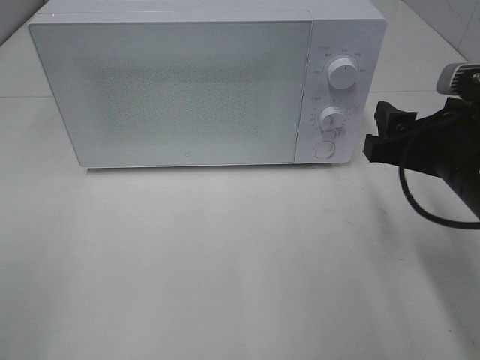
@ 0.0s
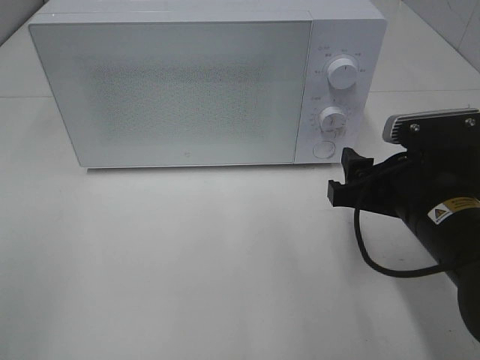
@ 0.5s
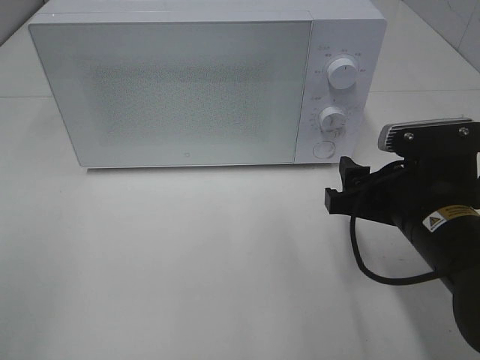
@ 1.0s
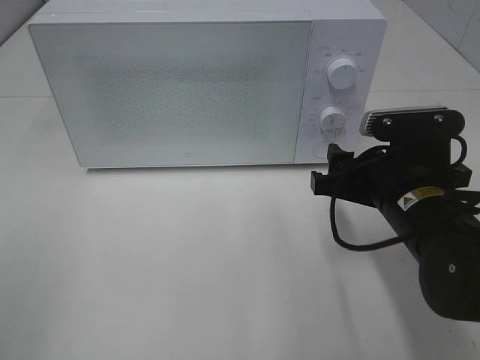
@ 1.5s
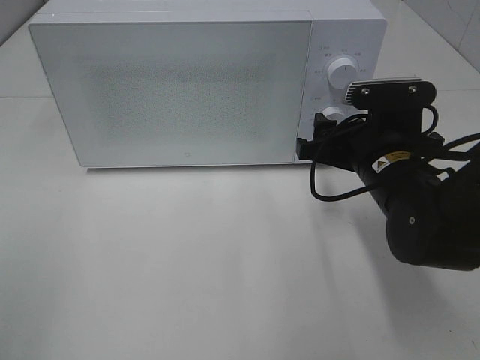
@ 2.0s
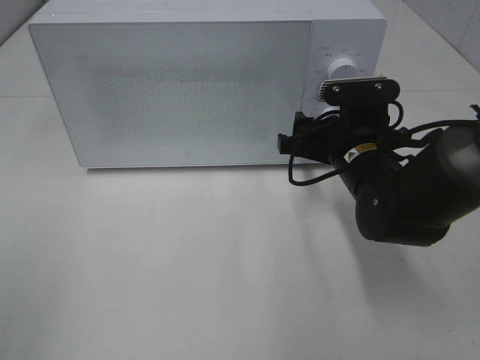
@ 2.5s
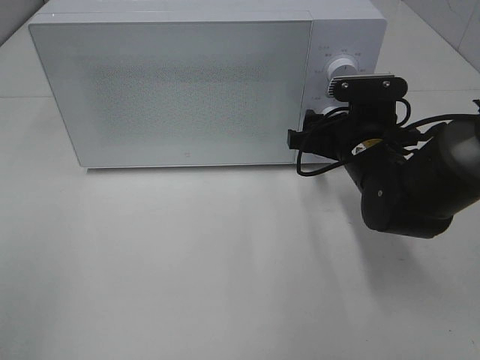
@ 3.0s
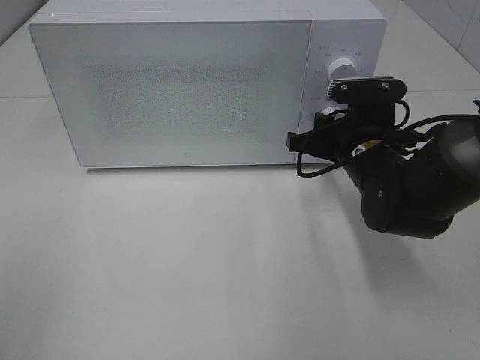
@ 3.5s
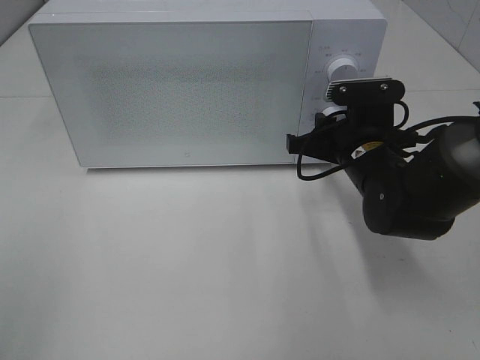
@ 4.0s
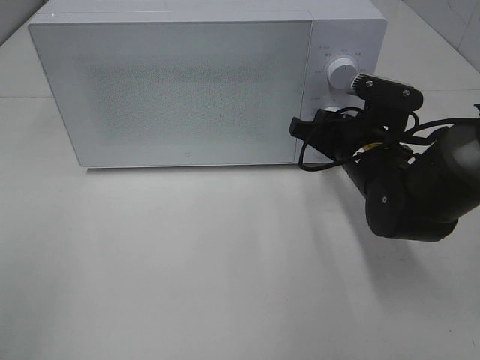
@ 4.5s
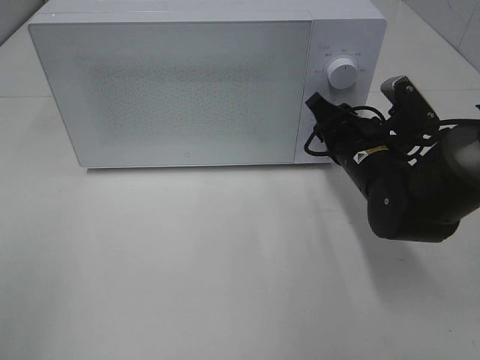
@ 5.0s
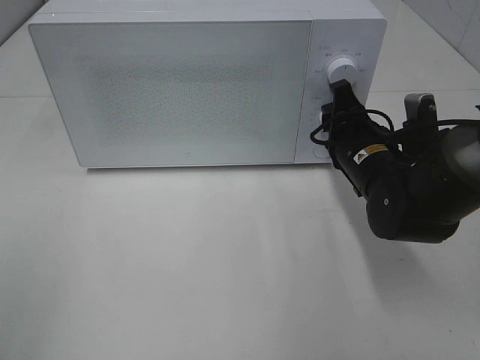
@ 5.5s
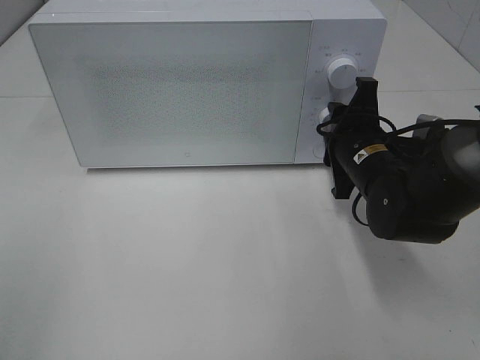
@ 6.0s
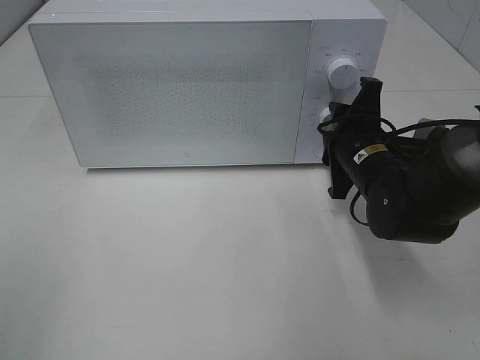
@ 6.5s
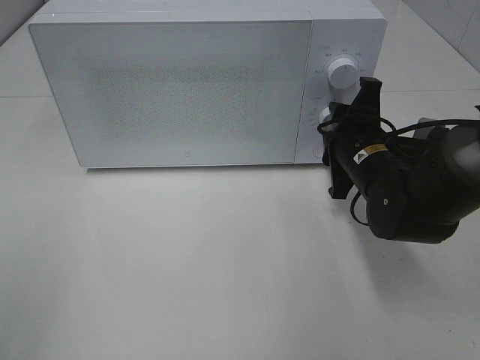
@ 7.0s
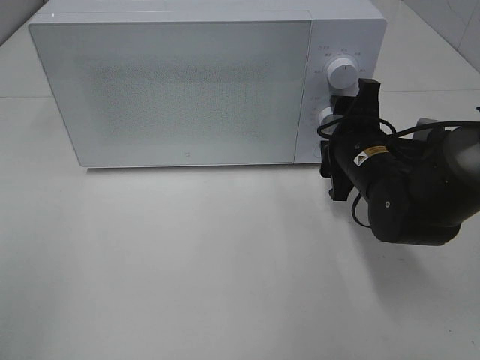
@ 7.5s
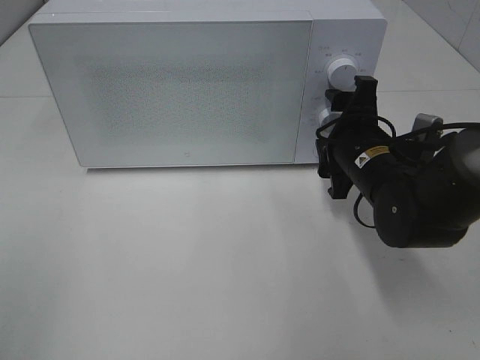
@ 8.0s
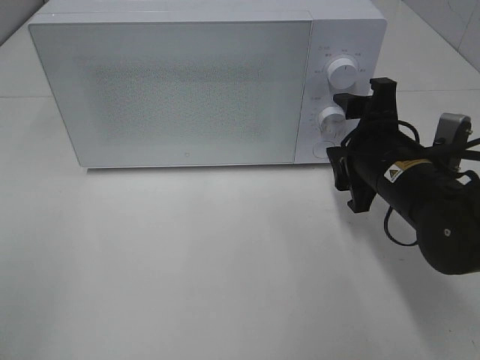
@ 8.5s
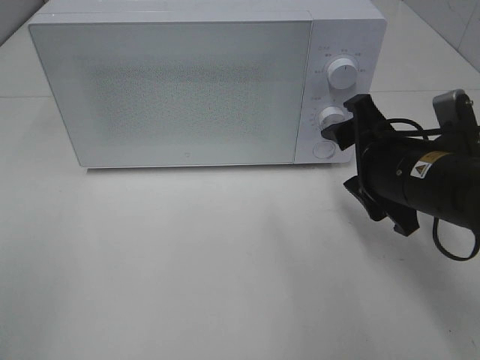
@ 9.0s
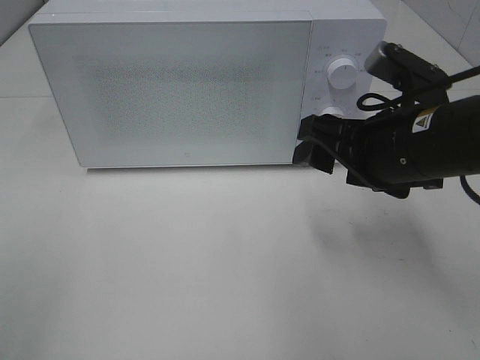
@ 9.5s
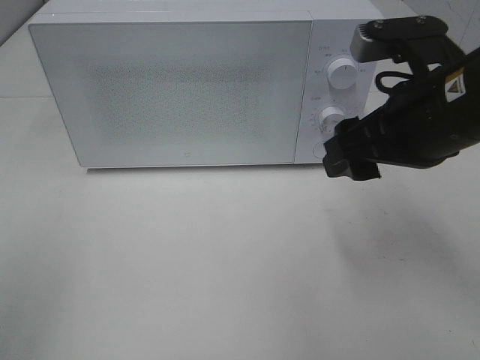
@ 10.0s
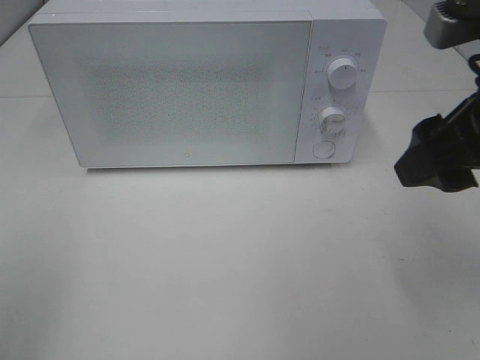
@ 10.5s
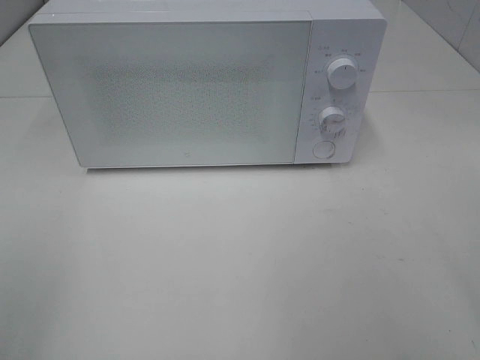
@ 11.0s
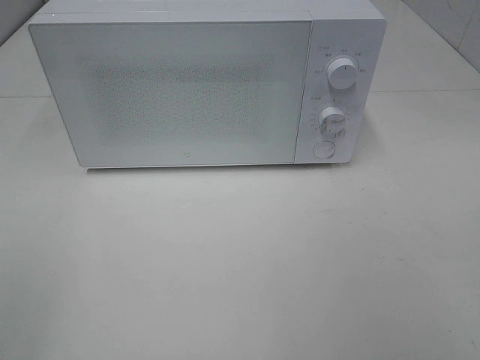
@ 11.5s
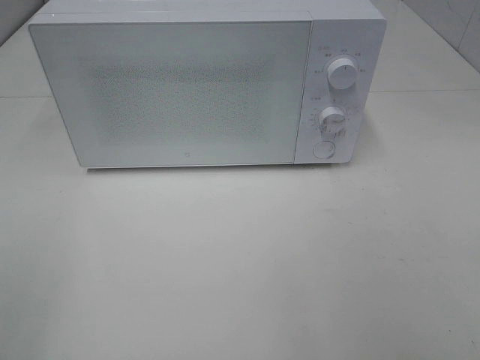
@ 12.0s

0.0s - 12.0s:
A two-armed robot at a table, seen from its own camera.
Task of the whole recording: Heat Sandwich.
Step, 0.0s - 8.0s: Right hand: twist timer button.
0.0s - 2.0s: The right gripper is displaced forward by approximately 5 cm.
2.0s - 4.0s: The right gripper closes its fingers.
6.0s - 8.0s: The right gripper opens up.
8.0s - 10.0s: The right gripper moves upward and backward, roughly 15 cm.
10.0s - 12.0s: The right gripper is displaced backward and to the right by approximately 25 cm.

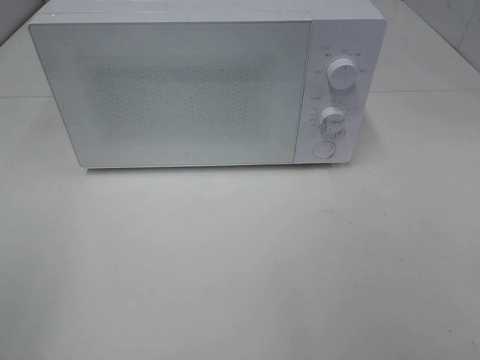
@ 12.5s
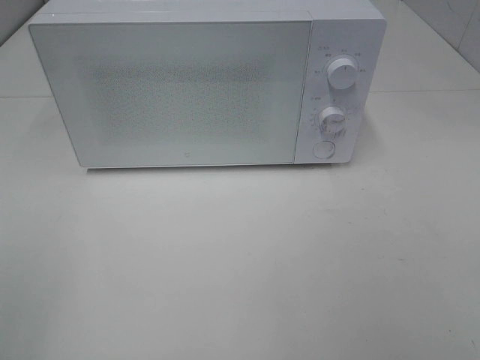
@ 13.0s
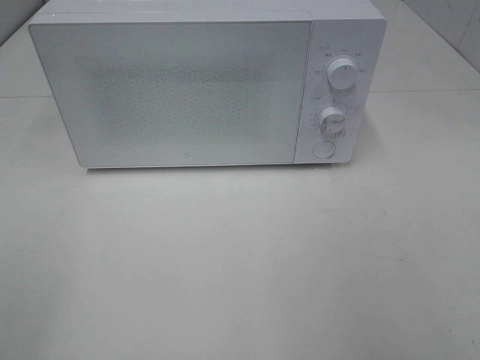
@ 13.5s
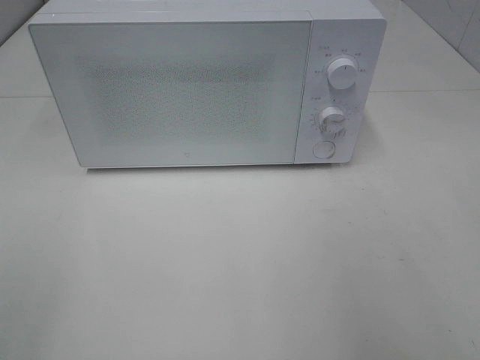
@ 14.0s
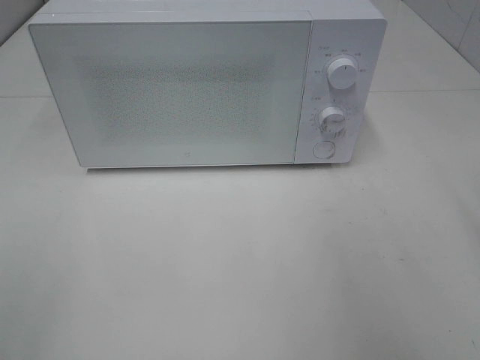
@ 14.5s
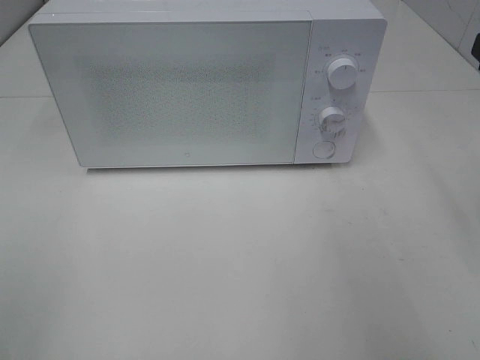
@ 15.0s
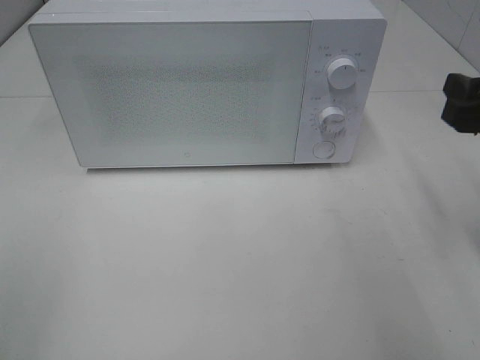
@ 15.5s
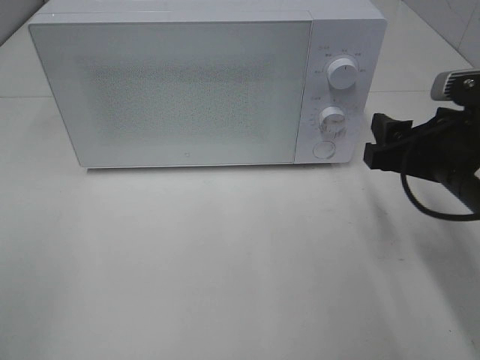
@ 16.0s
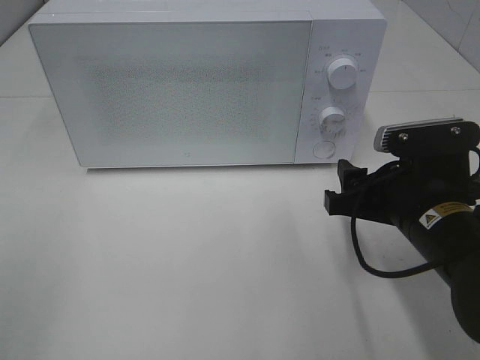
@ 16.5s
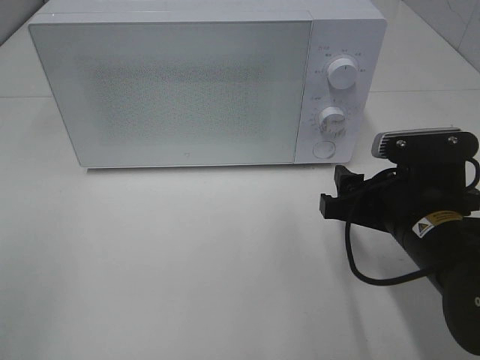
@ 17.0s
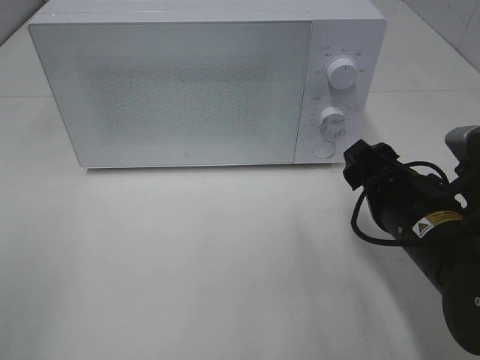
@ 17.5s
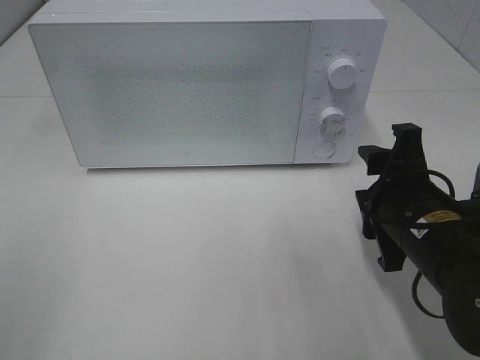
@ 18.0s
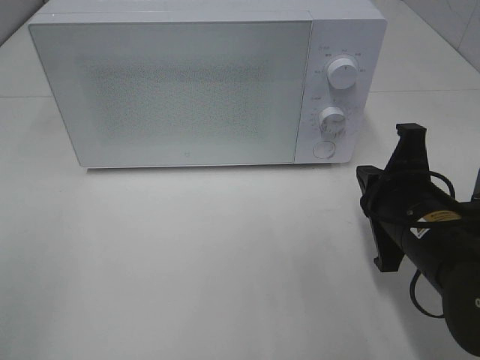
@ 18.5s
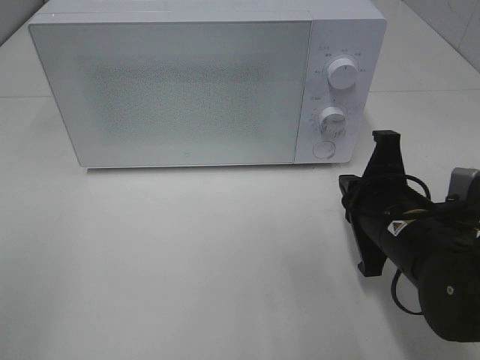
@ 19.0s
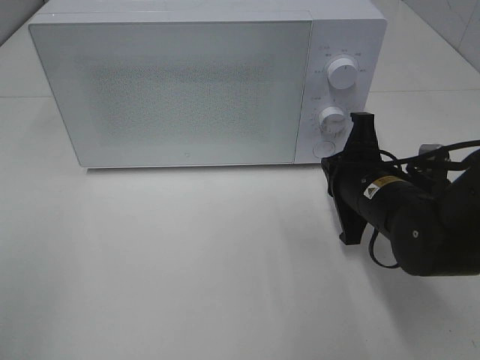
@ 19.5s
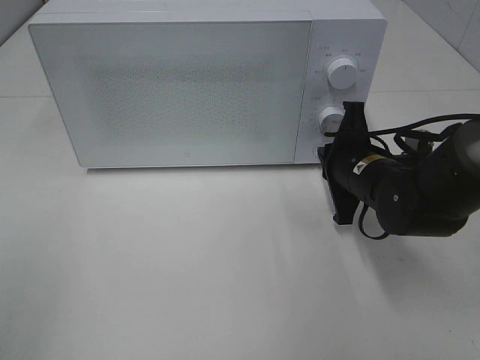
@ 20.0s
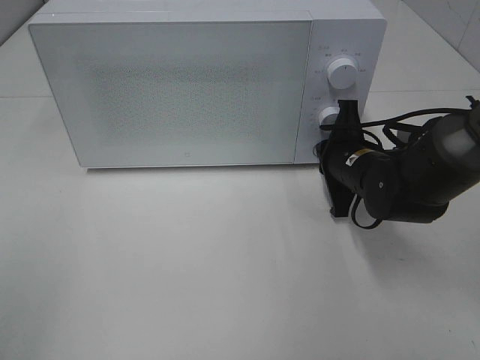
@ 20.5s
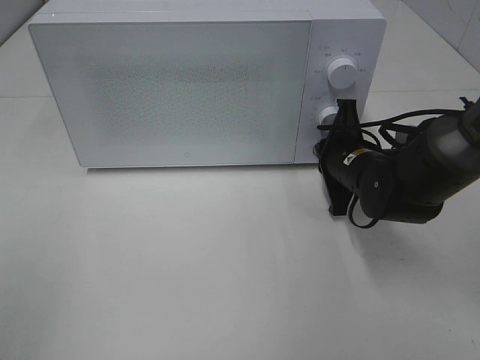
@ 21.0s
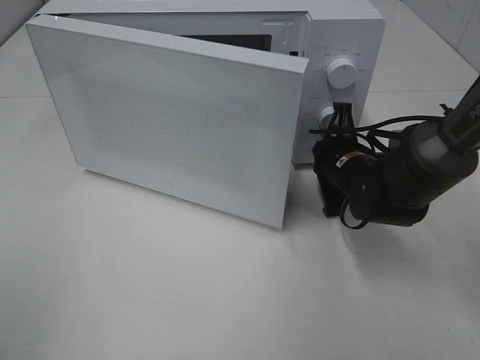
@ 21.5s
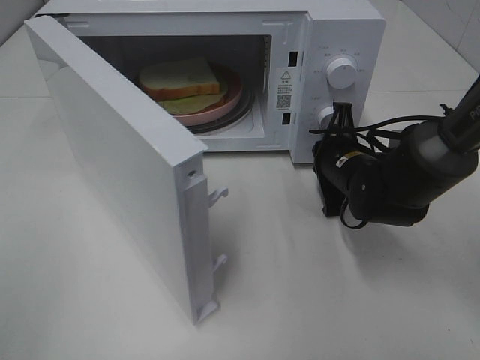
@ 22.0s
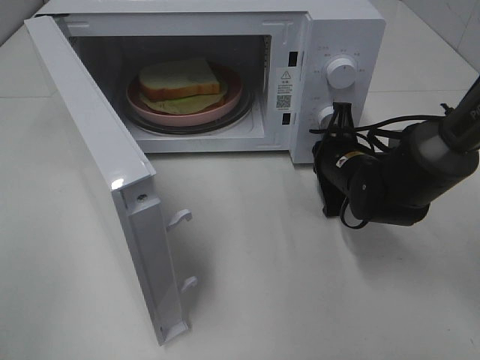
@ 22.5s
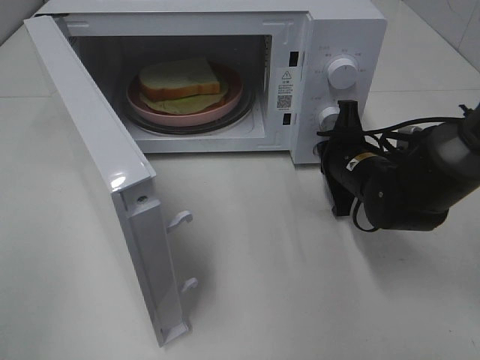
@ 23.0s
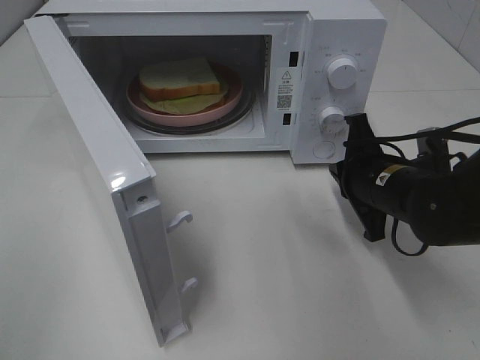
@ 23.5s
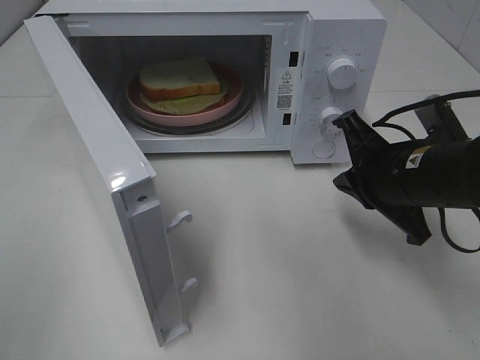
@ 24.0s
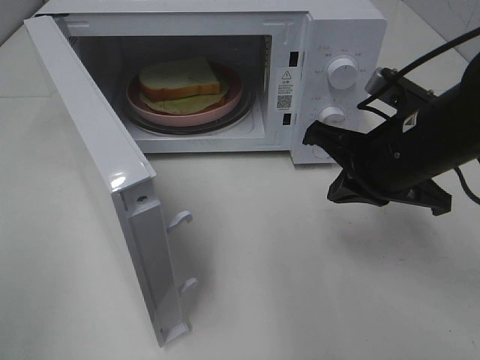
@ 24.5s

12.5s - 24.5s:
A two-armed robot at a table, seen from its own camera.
Task of the whole recording: Heat Sandwich.
Step, 12.5s - 23.0s: Right hand: press the switch.
14.5s - 16.5s: The right gripper goes approximately 20 cm downward and to the left.
16.5s - 18.5s: The right gripper closes its fingers.
18.5s - 20.5s: The right gripper is displaced forward by about 15 cm.
22.5s - 24.5s: The right gripper heads upward and backward, covering some 15 cm.

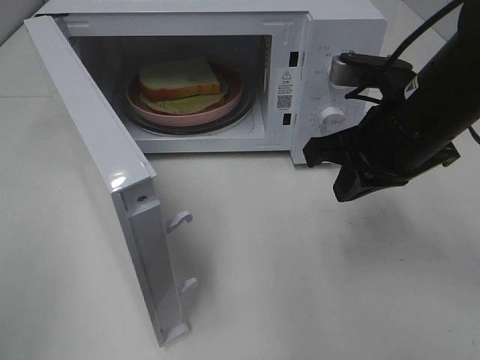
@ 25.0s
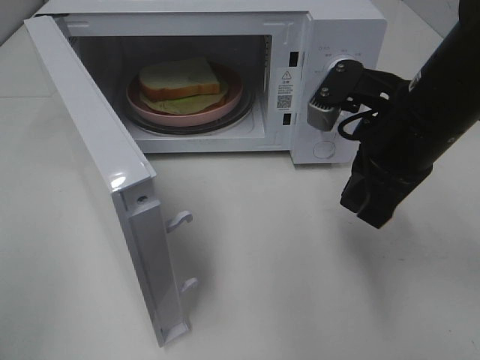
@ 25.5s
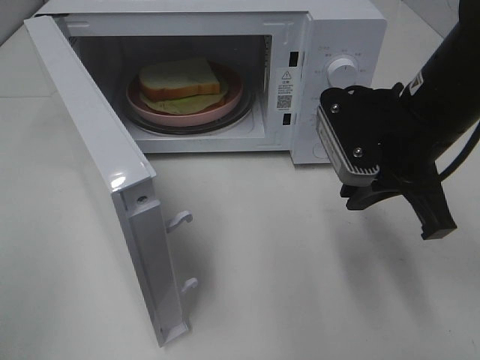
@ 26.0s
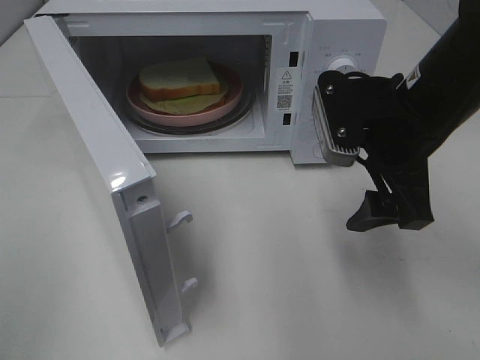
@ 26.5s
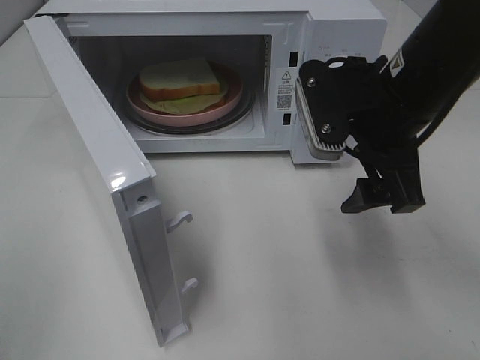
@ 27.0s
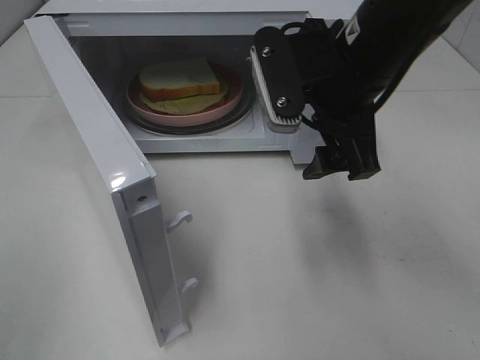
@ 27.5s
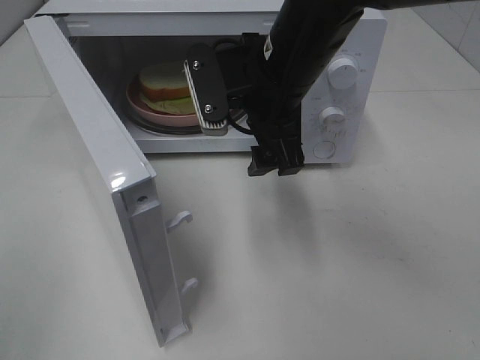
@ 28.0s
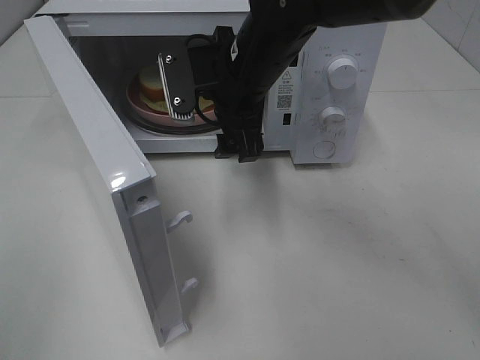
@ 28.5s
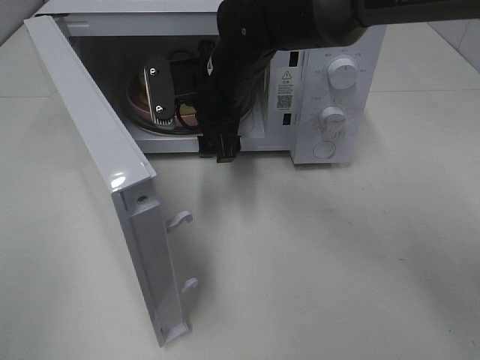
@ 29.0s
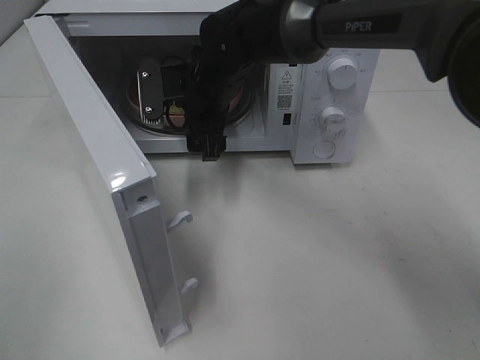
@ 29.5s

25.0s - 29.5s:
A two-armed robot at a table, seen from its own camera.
Task of the whole recording: Heat Sandwich.
25.0s - 27.0s: The right gripper opens.
27.0s - 29.5s: The right gripper shifts approximately 25 cm to the left, forward and downward.
